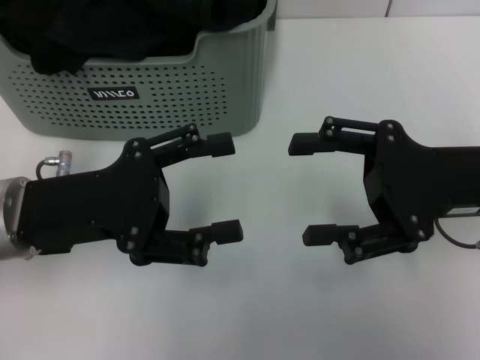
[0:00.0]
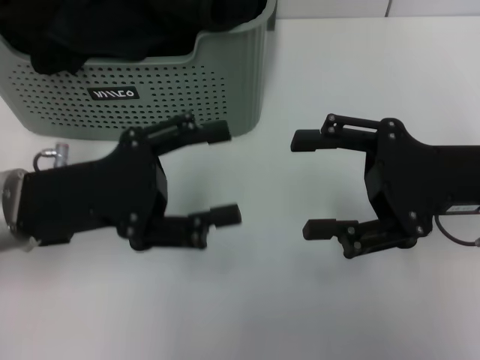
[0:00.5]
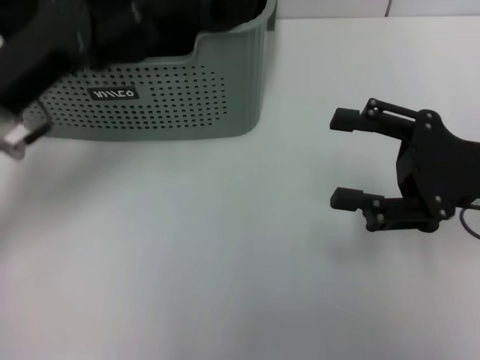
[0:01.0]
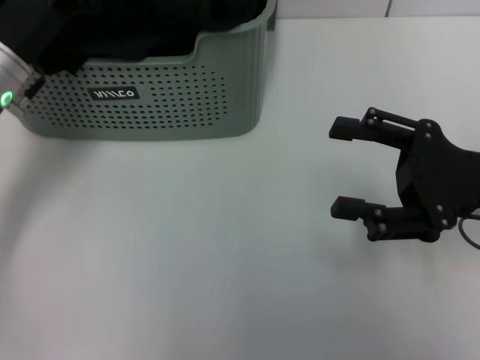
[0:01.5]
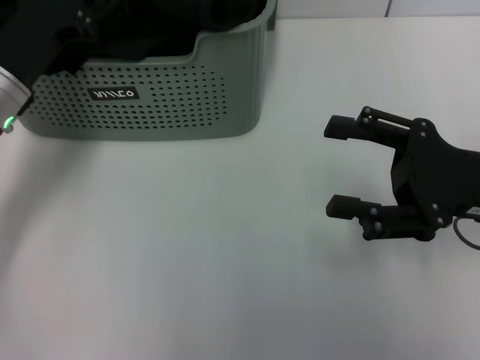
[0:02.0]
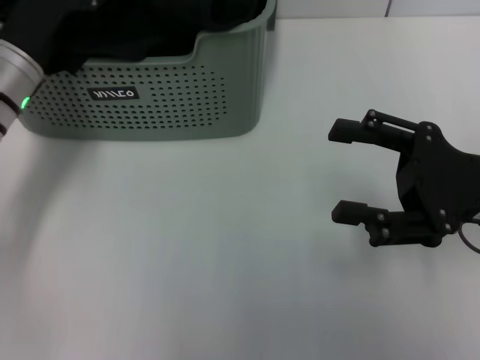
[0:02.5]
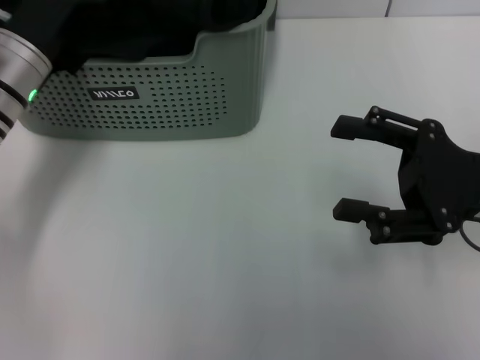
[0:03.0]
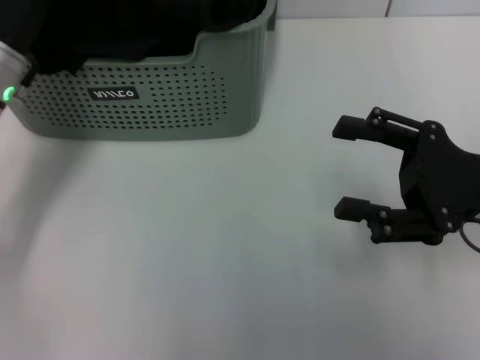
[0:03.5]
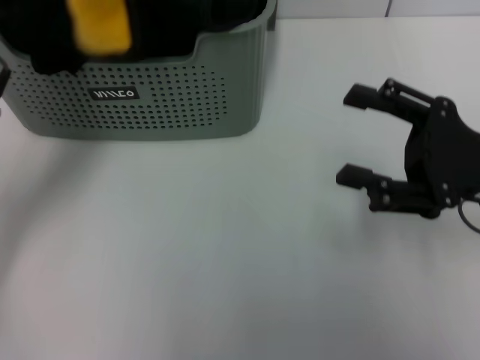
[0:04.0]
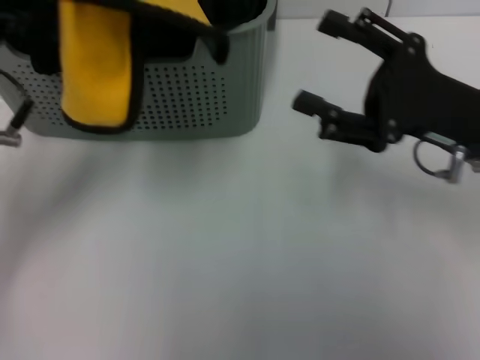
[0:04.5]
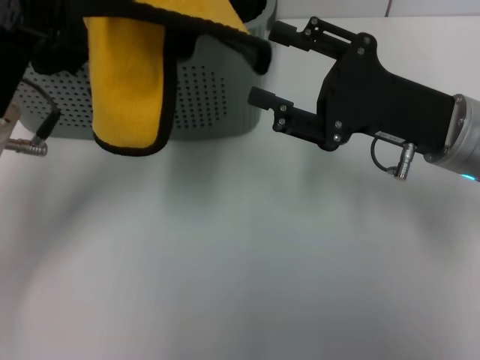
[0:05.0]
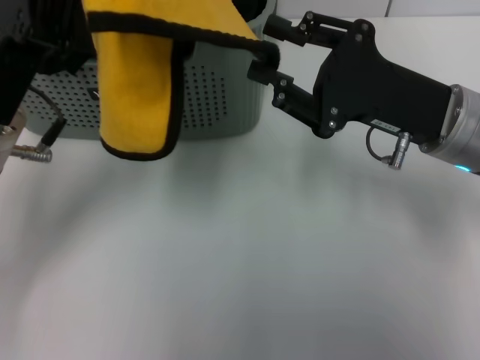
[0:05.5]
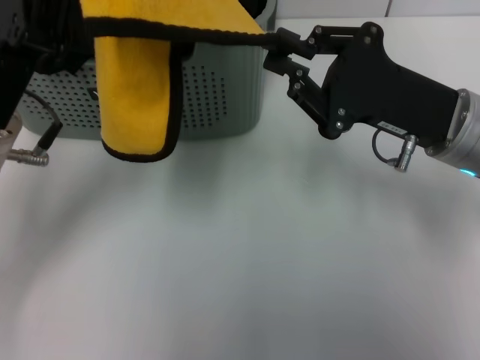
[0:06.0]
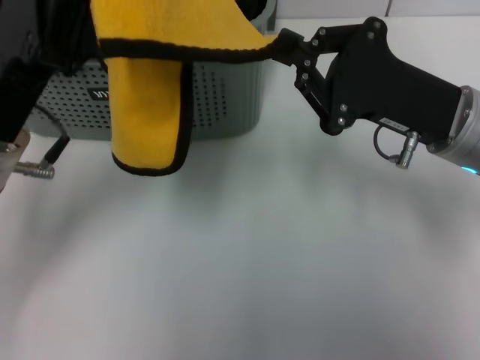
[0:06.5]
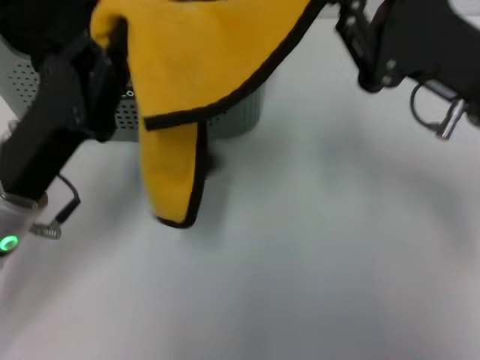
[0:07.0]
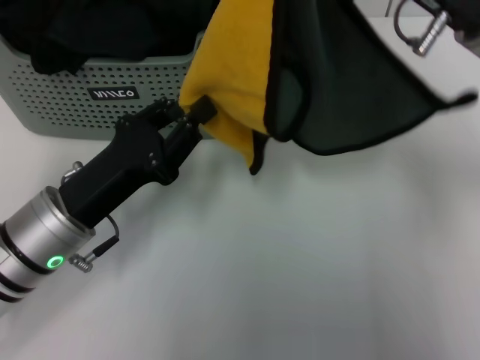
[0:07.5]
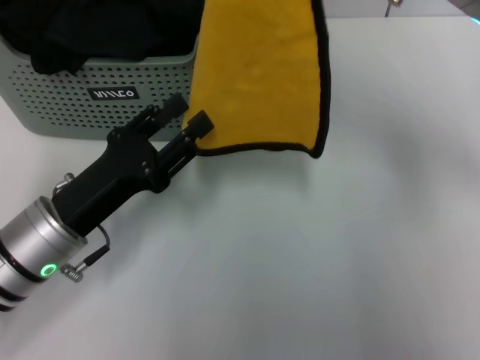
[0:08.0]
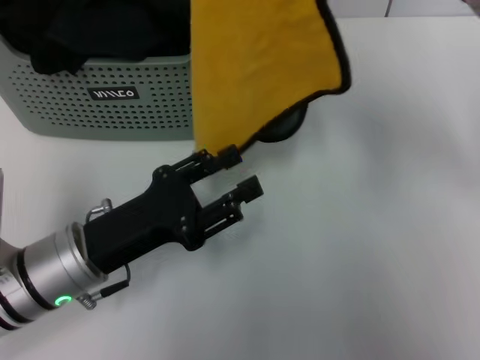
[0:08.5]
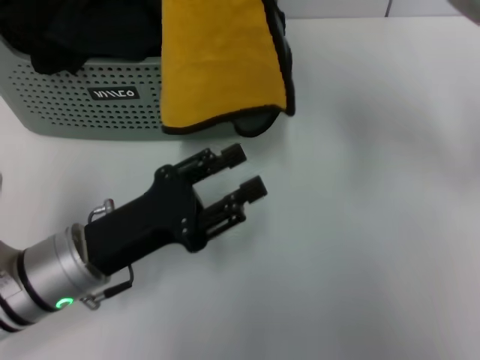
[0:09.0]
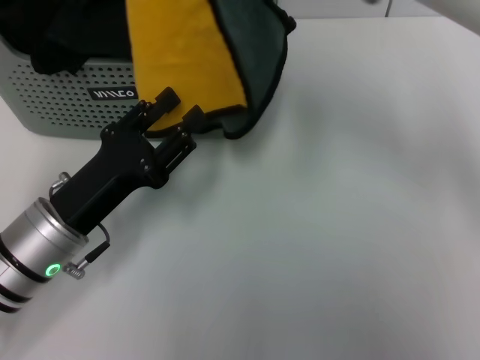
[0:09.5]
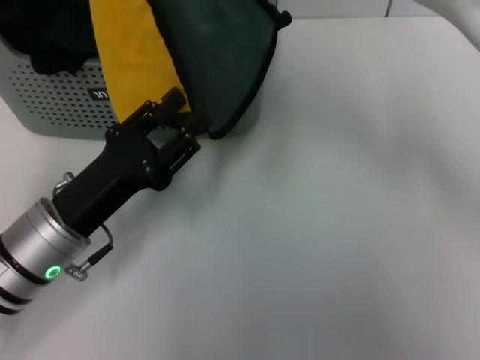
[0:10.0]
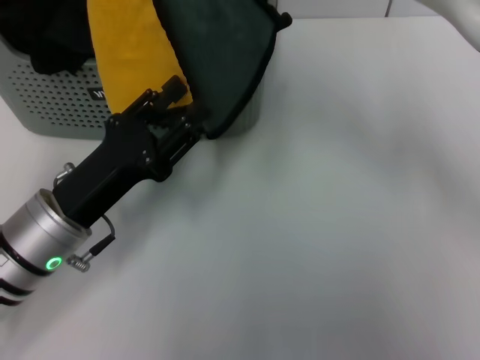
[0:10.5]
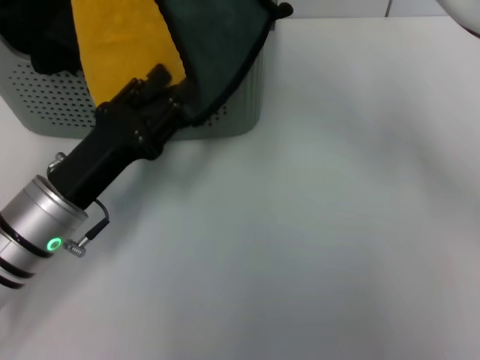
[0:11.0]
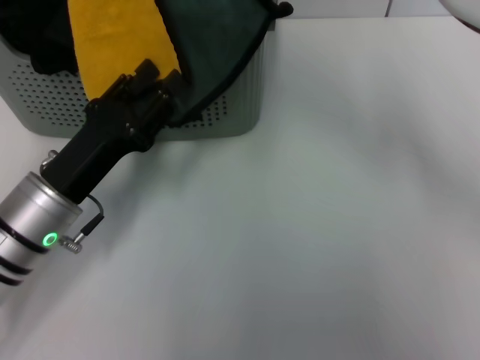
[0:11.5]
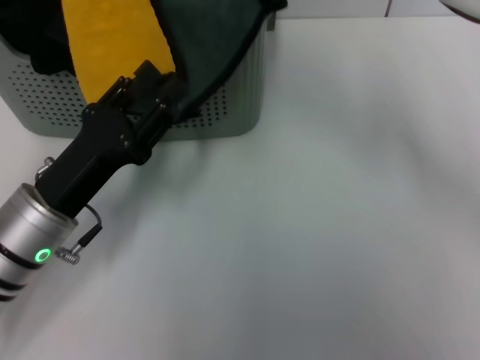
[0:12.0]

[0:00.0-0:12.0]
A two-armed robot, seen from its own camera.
Task of the whole recording: pick up the towel from the storage box and lay it flat on the table.
Step, 0:00.0 to 0:03.5: Pick up a towel with the left gripper.
Step, 0:04.0 to 0:05.5: Spread the towel flat with the left gripper.
0:00.0 to 0:02.0: The left gripper goes some 10 cm forward.
0:02.0 to 0:04.0: The left gripper ends up approximately 5 cm from where it was, and closes its fingers.
0:04.0 to 0:06.0: The right gripper heads to the left, covering some 5 cm, and closes.
0:06.0 to 0:08.0: The left gripper shifts some 10 cm downward, and opens up. The right gripper shifts some 10 cm upward.
0:08.0 to 0:10.0: The right gripper moves to the left, roughly 15 cm.
0:10.0 to 0:12.0: The grippers move only a little.

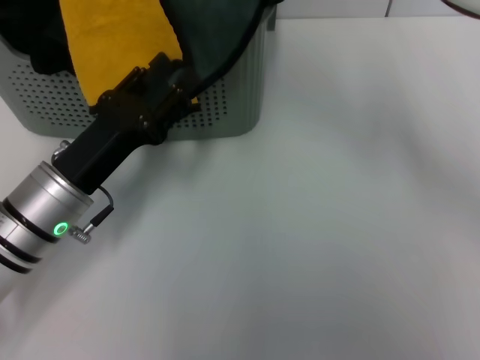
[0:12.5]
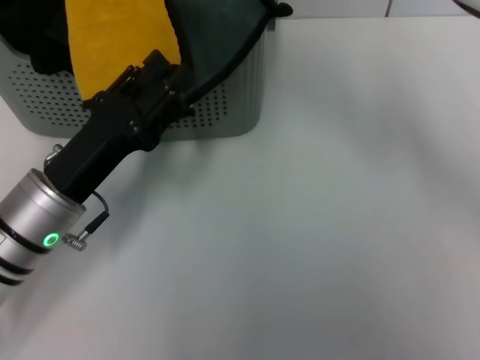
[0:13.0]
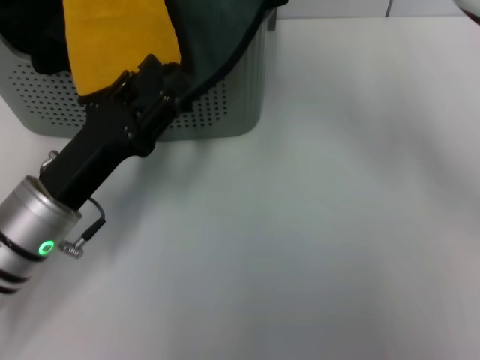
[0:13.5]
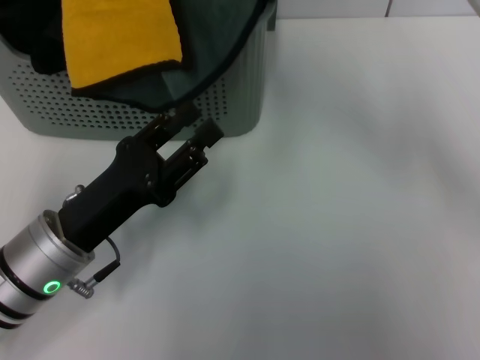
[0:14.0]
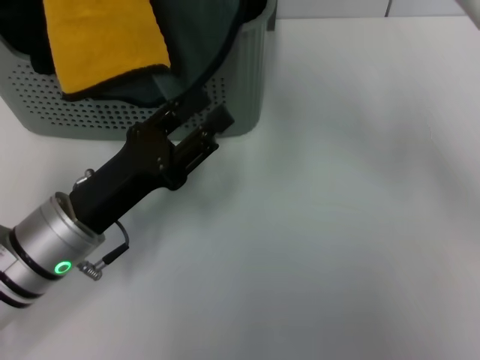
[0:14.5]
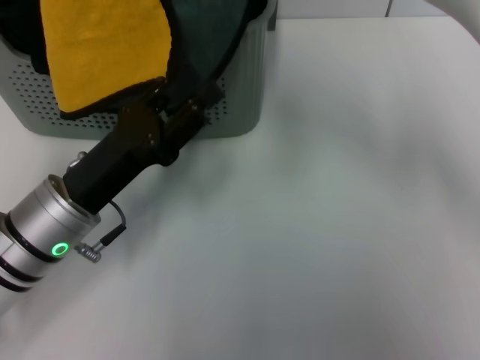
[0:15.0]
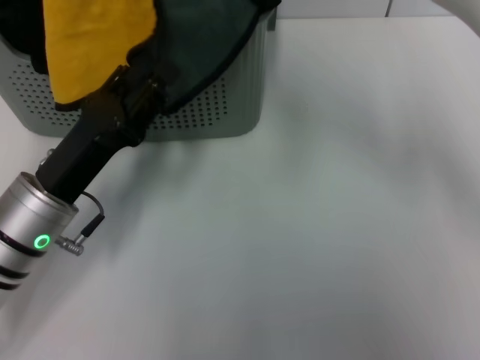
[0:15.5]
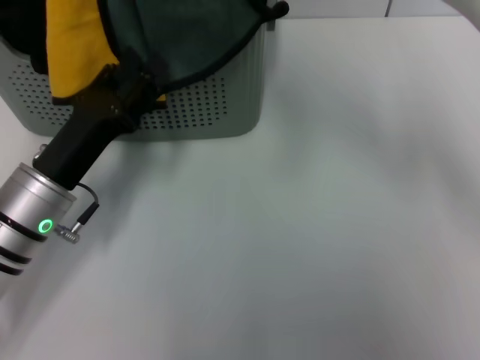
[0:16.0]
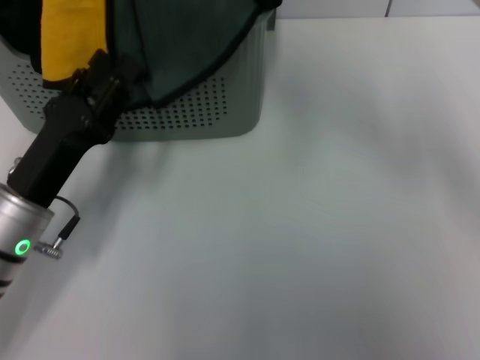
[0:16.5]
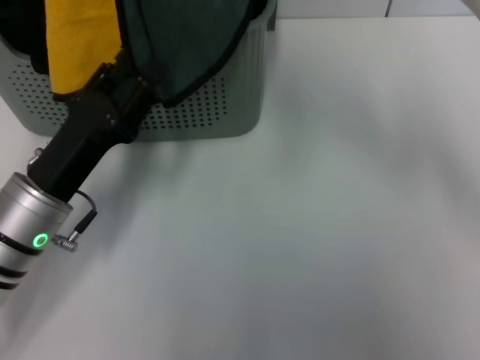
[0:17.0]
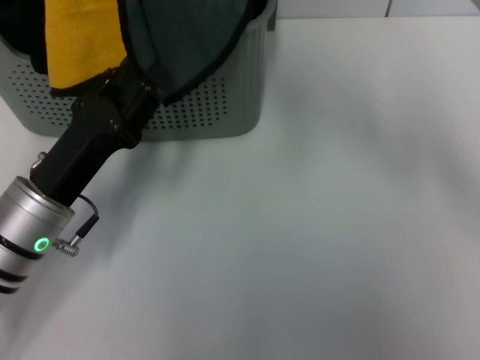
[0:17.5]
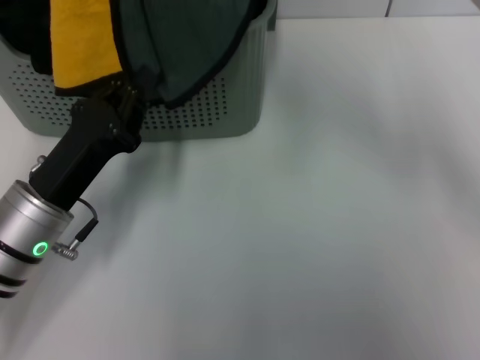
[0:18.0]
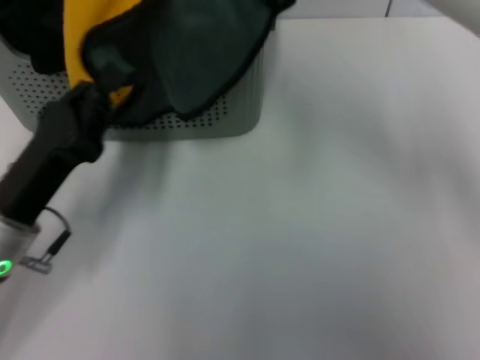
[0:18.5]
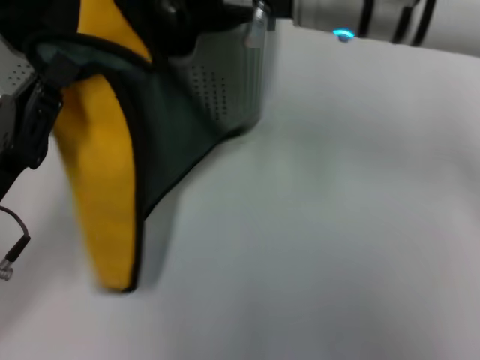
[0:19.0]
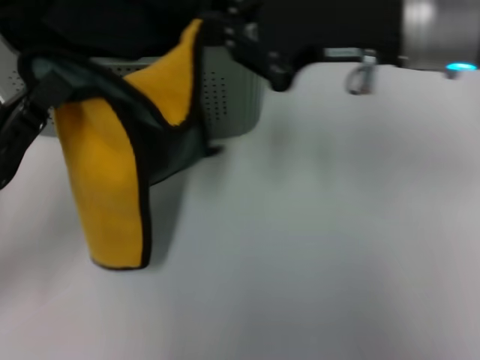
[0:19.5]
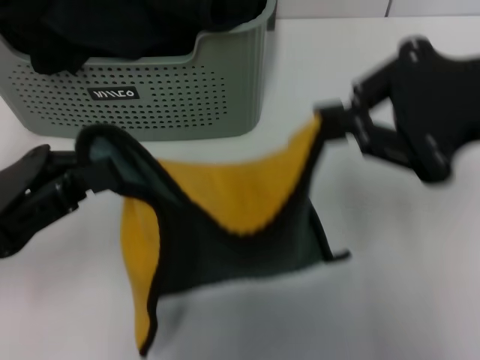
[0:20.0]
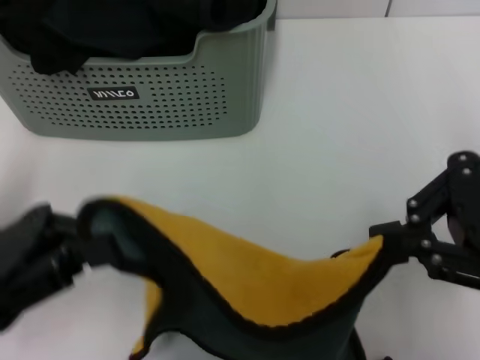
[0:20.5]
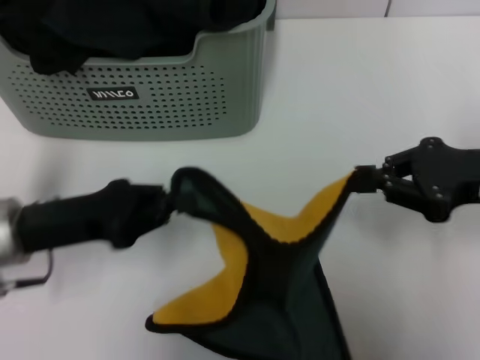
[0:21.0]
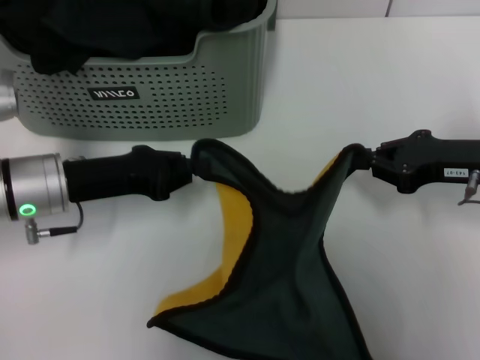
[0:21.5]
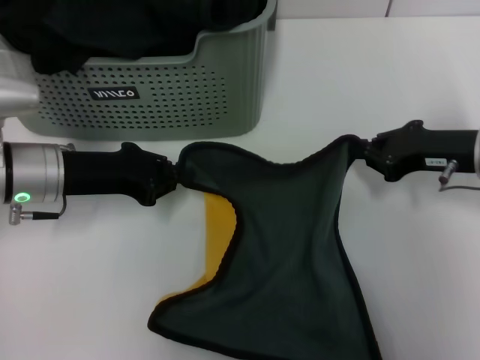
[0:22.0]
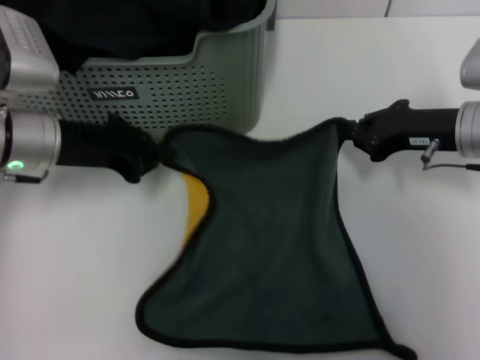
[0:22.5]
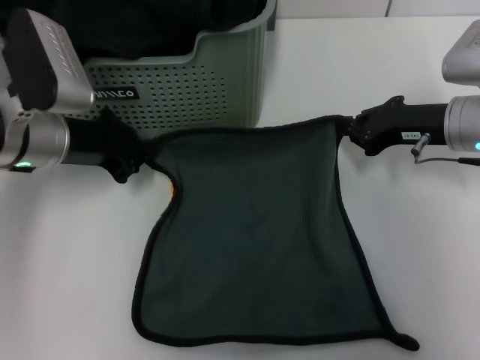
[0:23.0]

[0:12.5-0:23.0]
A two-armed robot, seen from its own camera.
Task of the whole recording: pick up the towel from the storage box and lay it flat on the table.
0:12.5 to 0:14.5: The grippers move only a little.
0:16.5 to 0:19.0: The right gripper goes roughly 5 cm downward; the left gripper closes.
0:19.0 to 0:21.0: The right gripper goes about 20 cm to the right and downward.
0:21.0 to 0:23.0: Both grippers travel together forward, about 10 cm.

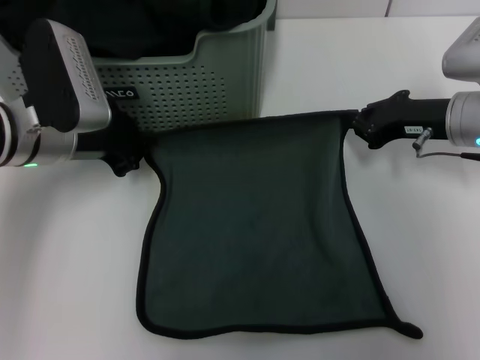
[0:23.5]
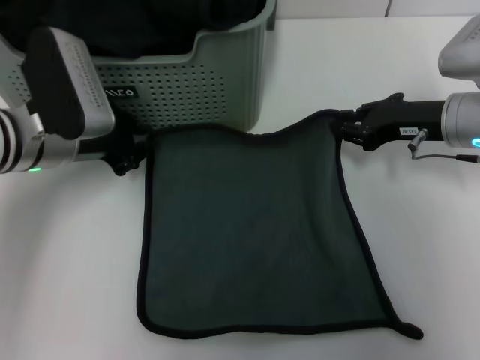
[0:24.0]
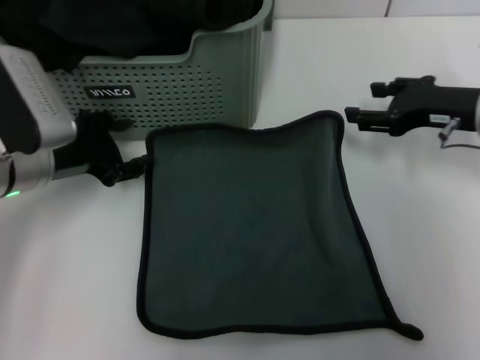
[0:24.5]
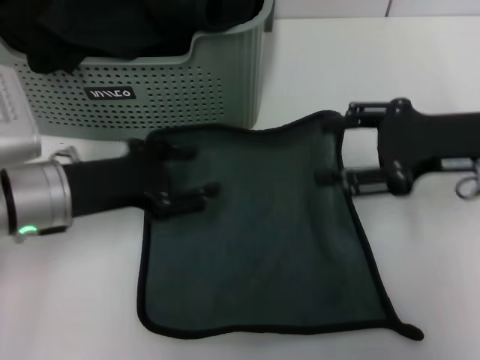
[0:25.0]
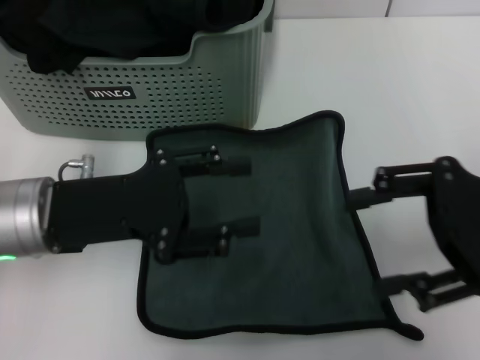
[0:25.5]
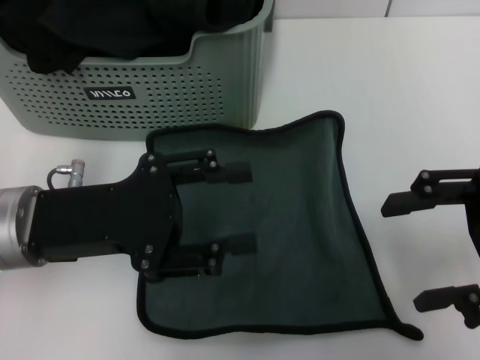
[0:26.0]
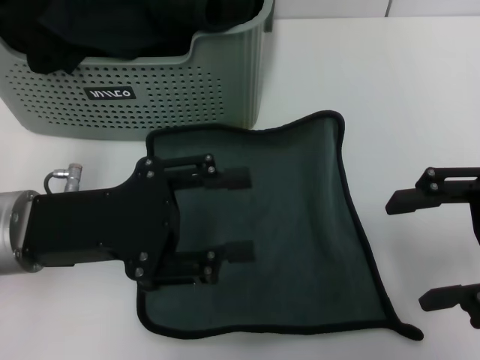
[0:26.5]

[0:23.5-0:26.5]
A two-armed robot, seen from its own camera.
Task of the whole recording: pick up the towel from the storage box and lay it flat on the table.
0:23.5 to 0:25.0: The right gripper travels backward and upward by some 10 cm, and opens up; the left gripper is displaced backward by roughly 5 cm, and opens up.
0:25.0 to 0:26.5: The right gripper moves backward, some 5 cm.
